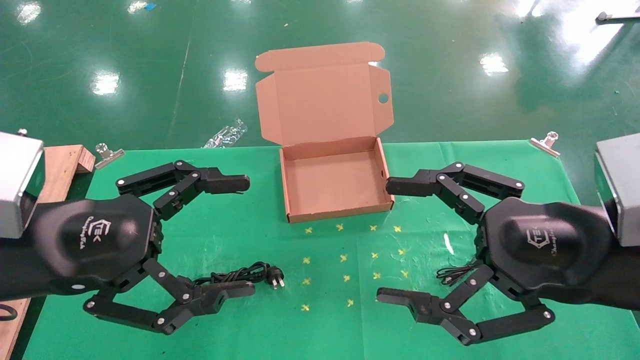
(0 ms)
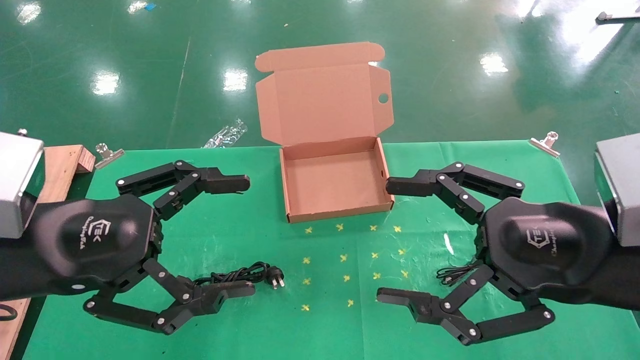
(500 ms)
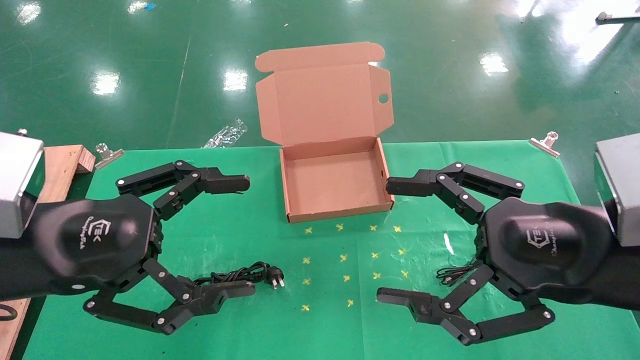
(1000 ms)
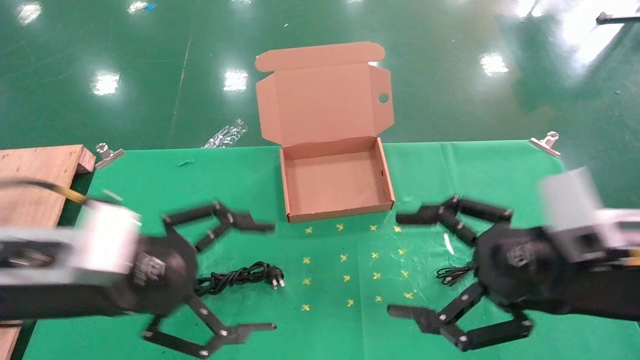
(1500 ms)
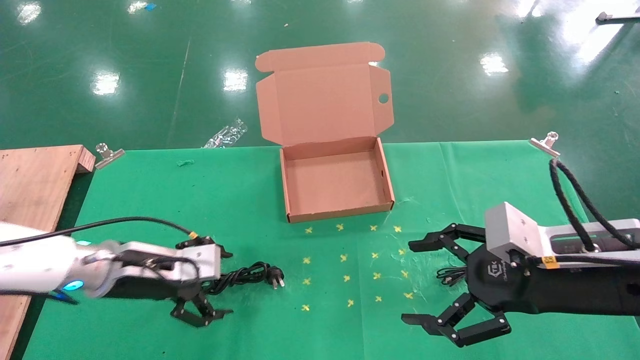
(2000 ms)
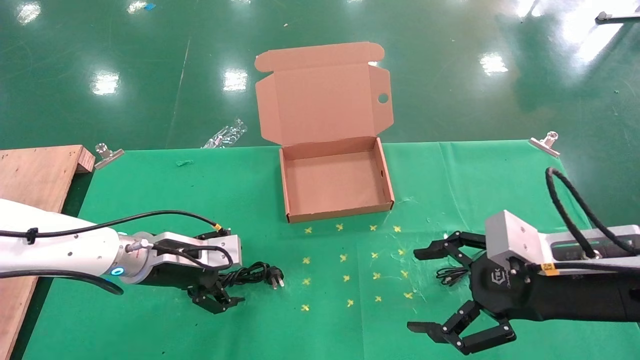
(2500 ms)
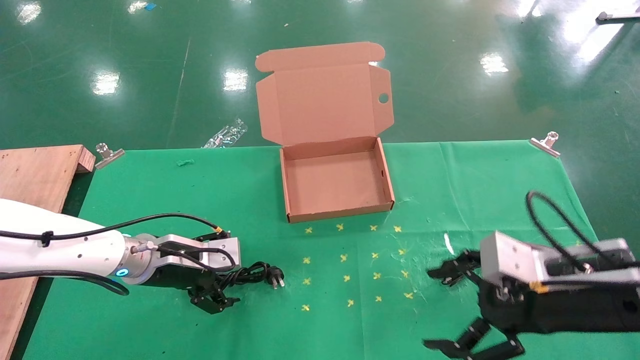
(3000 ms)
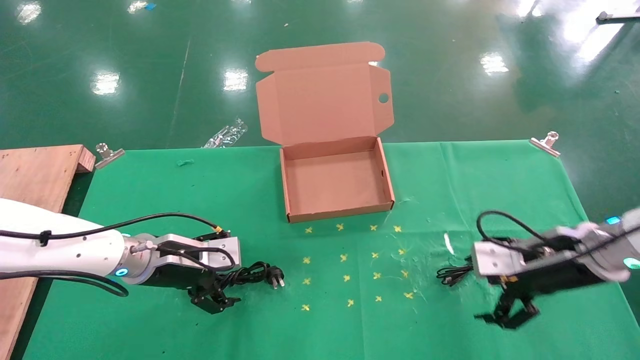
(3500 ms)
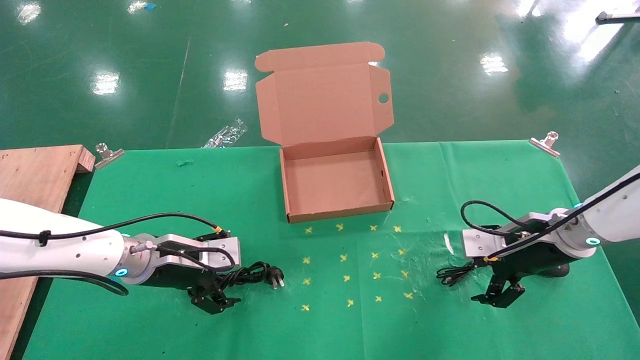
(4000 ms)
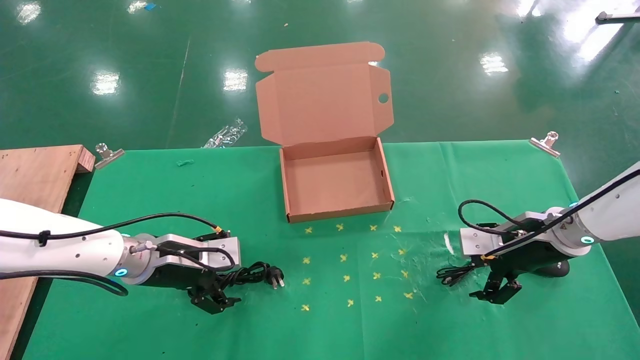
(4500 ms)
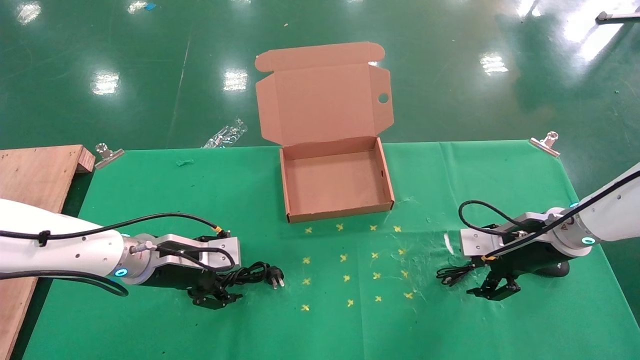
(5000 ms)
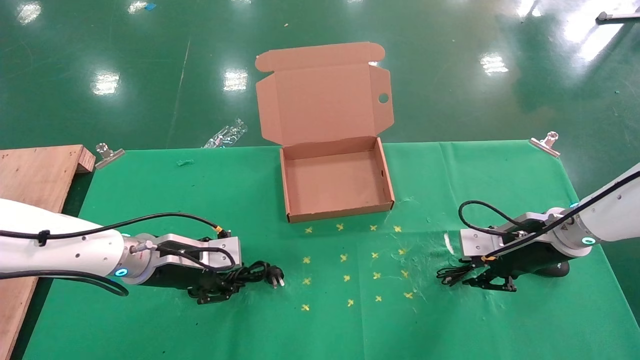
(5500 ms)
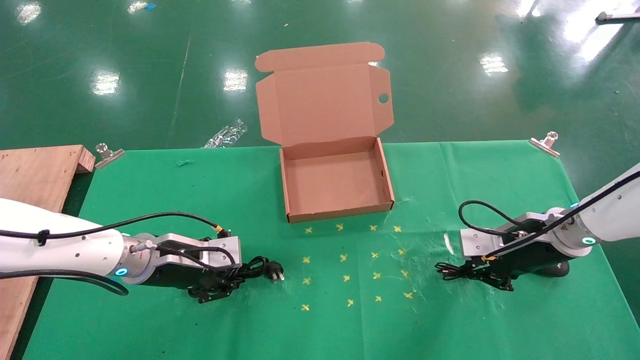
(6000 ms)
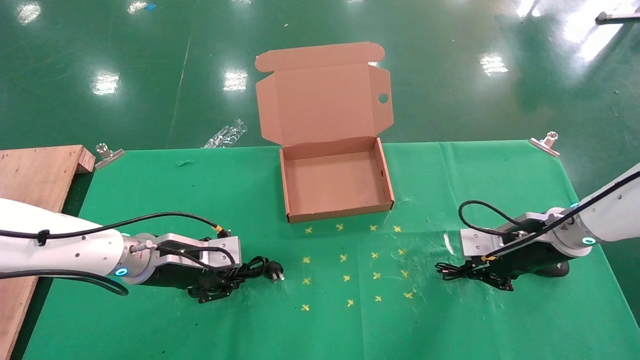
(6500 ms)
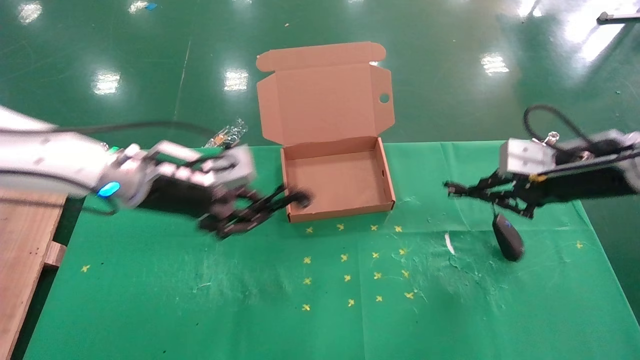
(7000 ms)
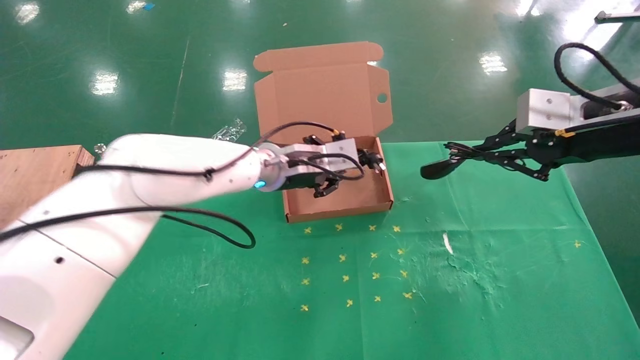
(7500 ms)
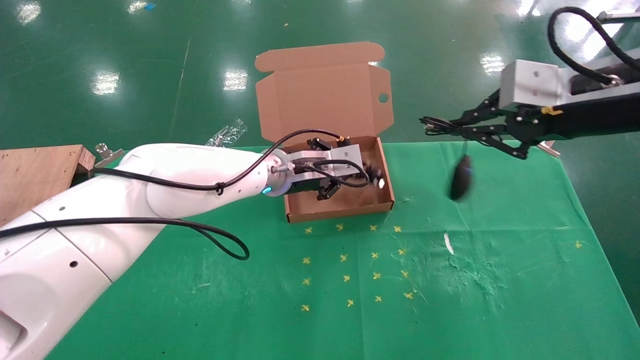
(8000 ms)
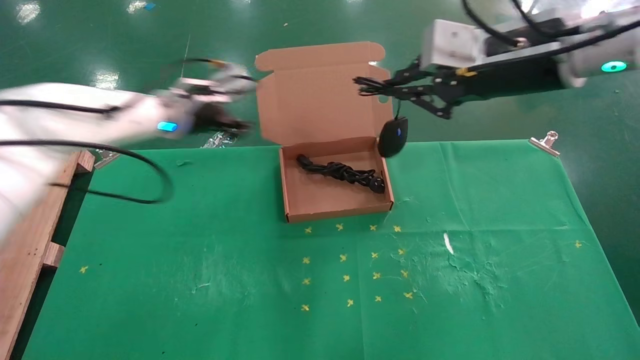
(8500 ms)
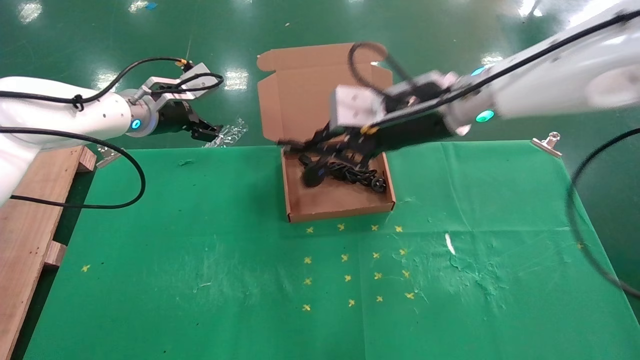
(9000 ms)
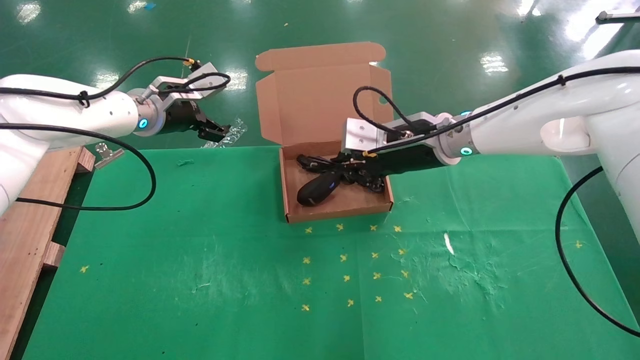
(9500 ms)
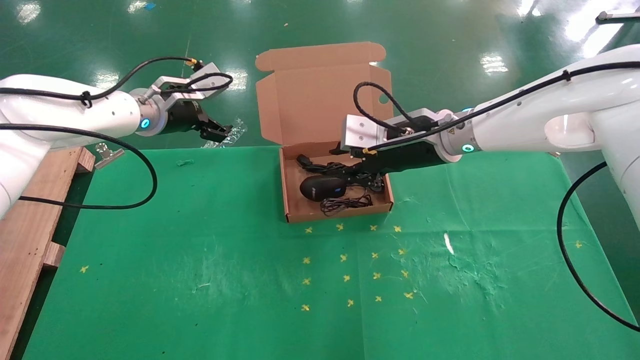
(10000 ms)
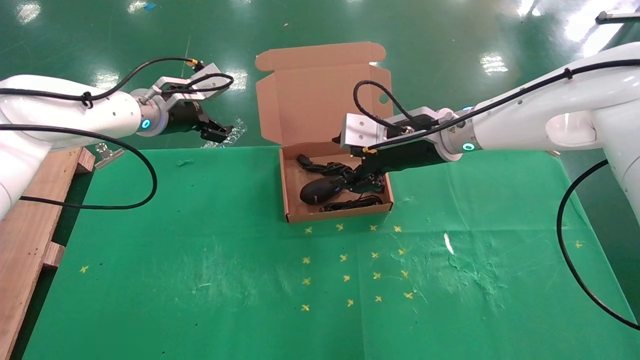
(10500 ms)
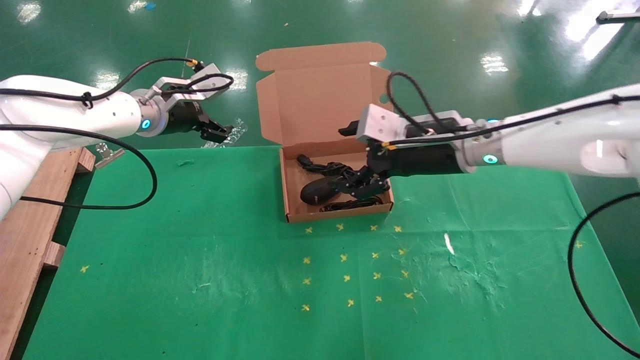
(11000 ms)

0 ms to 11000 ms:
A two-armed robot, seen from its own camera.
Task of the whole recording: grasp data cable left put into box grasp mouse right put into box.
Step, 1500 ms to 5500 ms: Simultaneously pick up the mouse and power cord from the accessory packaging area.
Step, 6000 ms to 10000 ms: Place the mouse and power cord into the box.
0 ms to 2000 ms: The right gripper travels downward and forward by about 10 cm. The left gripper travels forward and downward by approximately 20 cm.
2000 ms to 3500 ms: The right gripper moves forward, about 10 cm. The left gripper shifts by some 5 cm.
3500 ms to 5500 ms: The left gripper closes its fingers, while the right gripper is displaced forward by roughly 5 cm, and closes.
5500 ms to 7500 ms: The left gripper goes about 20 cm to the right, upward and forward. Meanwhile the right gripper goes roughly 20 cm upward, and closes its fingers.
7500 ms to 9000 ms: The left gripper heads to the left and upward, covering about 20 cm, and opens. The right gripper is displaced to the left by roughly 20 cm.
9000 ms to 11000 ms: The right gripper travels downward by about 5 cm, and opens up.

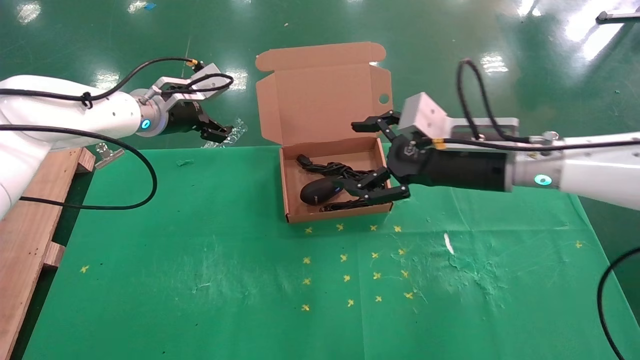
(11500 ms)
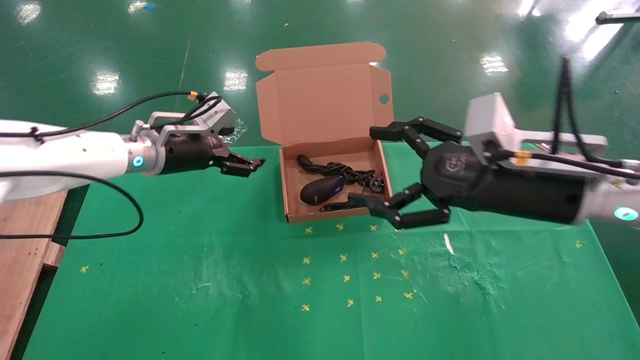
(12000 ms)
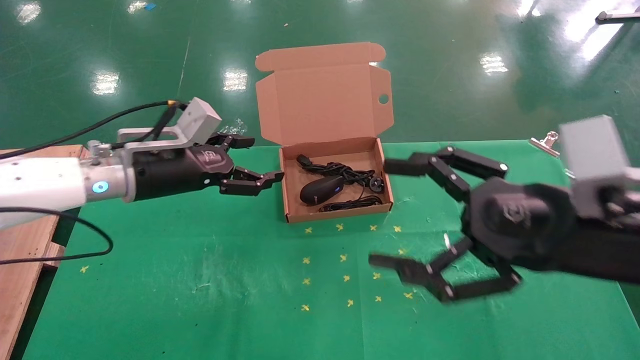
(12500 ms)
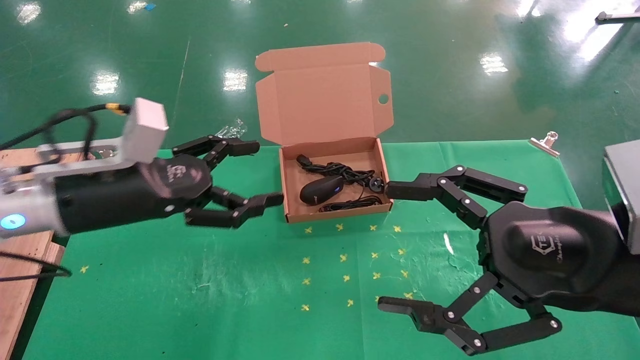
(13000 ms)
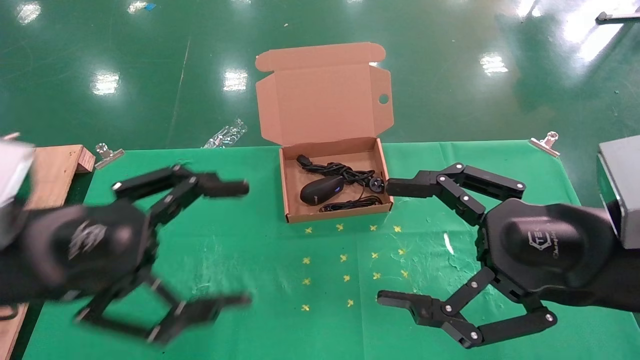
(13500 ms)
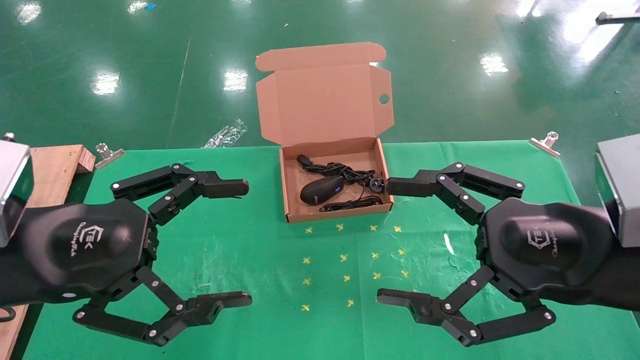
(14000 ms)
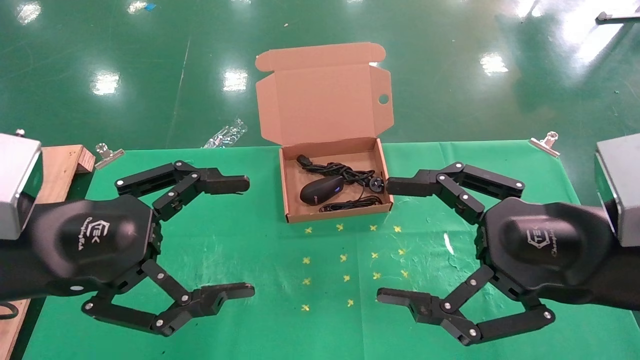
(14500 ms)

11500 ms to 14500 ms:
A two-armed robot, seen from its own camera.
Task of the whole recording: grasp data cable left put into box grasp mouse right put into box.
11500 ms to 13000 ms: The two grippers go roughly 20 cm backward.
13000 ms to 14500 ms: The left gripper heads backward, covering approximately 10 cm.

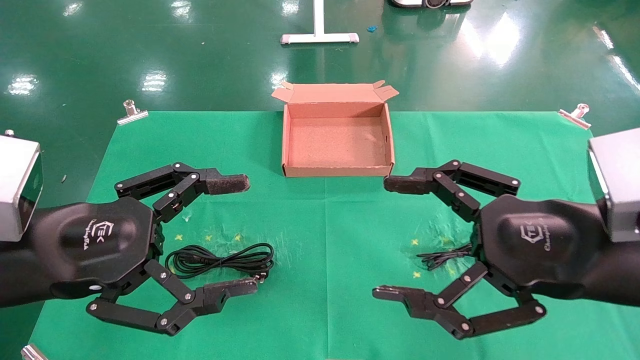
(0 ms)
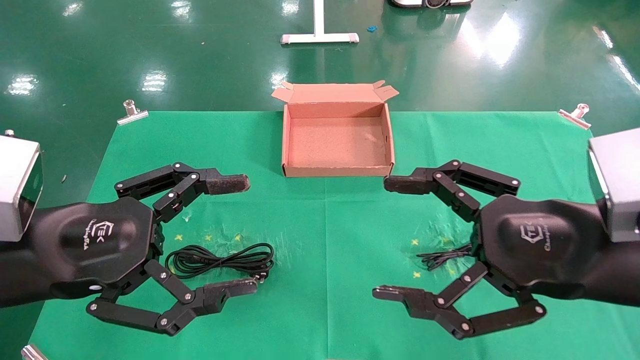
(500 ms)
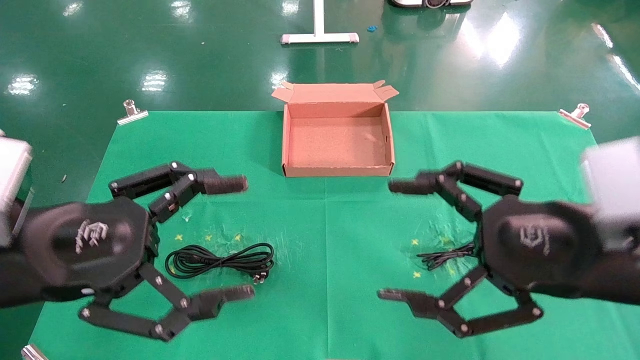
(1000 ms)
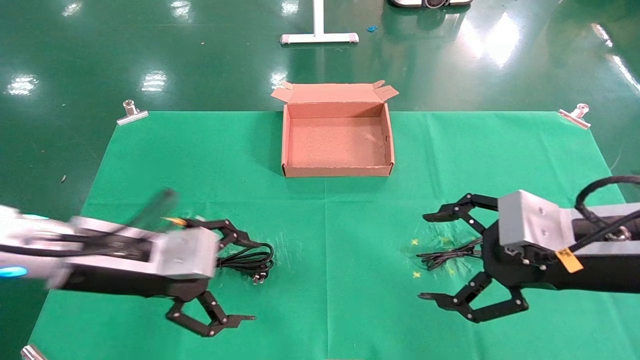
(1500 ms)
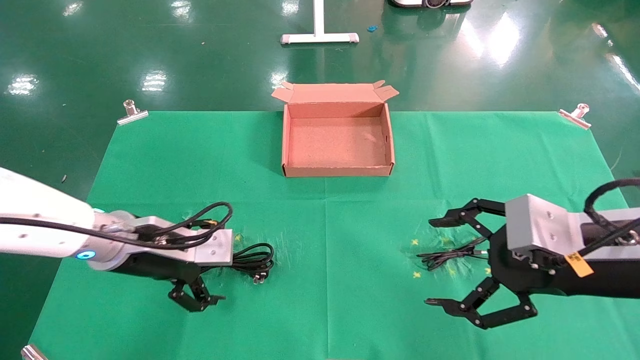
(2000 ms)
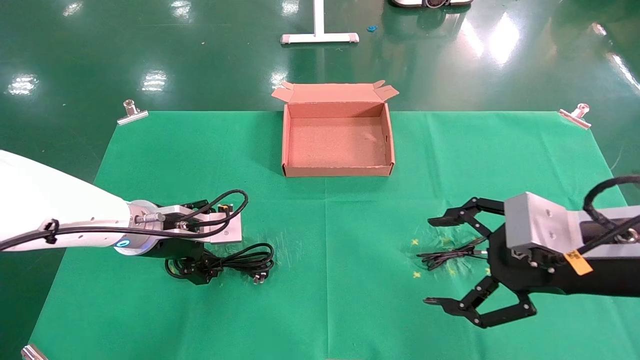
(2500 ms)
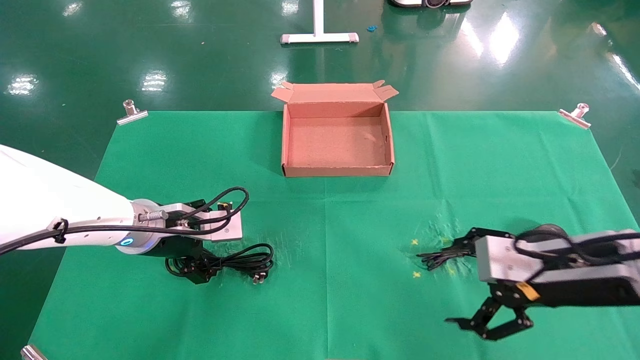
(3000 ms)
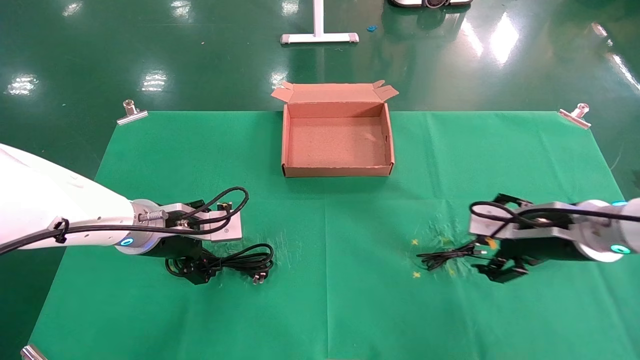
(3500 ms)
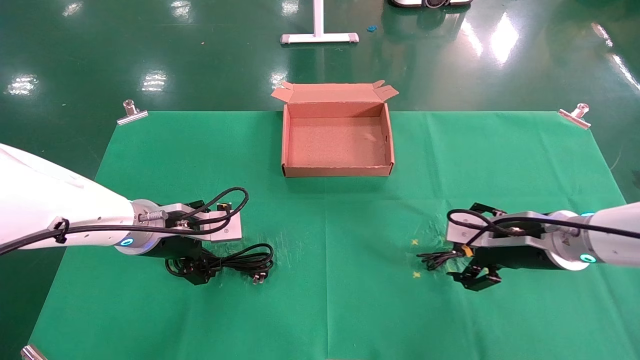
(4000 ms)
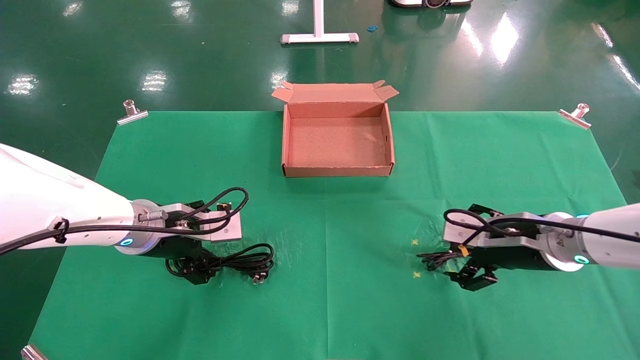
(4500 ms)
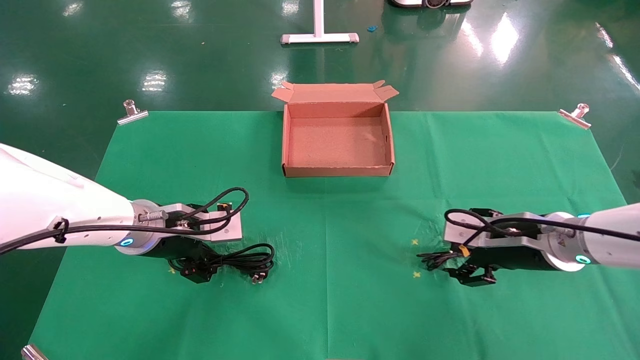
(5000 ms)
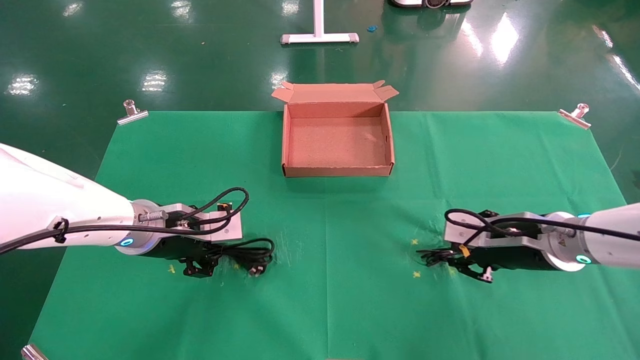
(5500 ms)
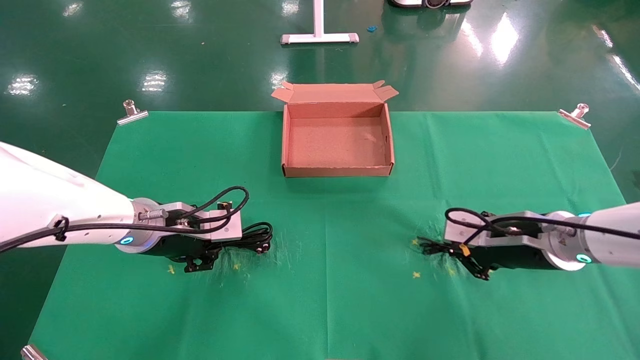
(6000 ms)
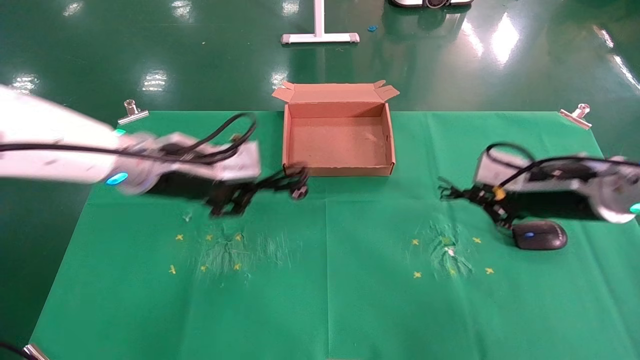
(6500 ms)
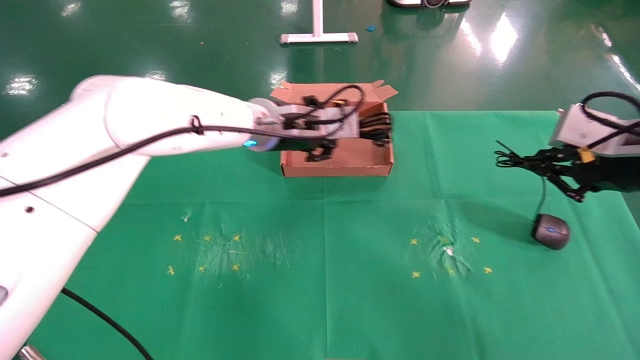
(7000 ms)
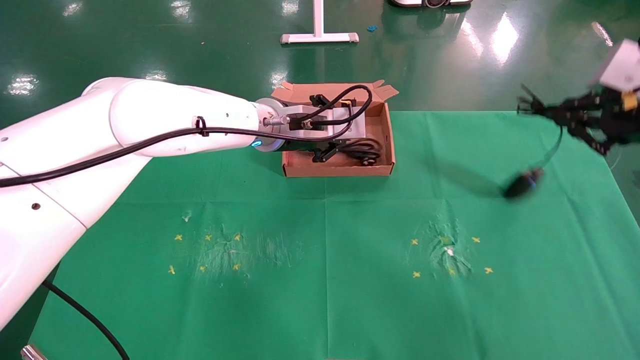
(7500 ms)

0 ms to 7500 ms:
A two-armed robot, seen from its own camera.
Task of the whole recording: grasp data cable left put into box grasp mouse right put into box.
Step, 1500 ms to 6000 ms: Simultaneously pick up the mouse and power cord from the accessory packaging area.
0 ms to 2000 ms: The right gripper ends up some 5 cm from where it was, while the left gripper travels forward and downward by approximately 15 cm.
2000 ms to 4000 ms: The right gripper shifts roughly 15 cm forward and downward.
4000 ms to 5500 ms: The left gripper closes up. Meanwhile the right gripper closes up.
5500 ms to 7500 ms: The right gripper goes about 20 cm upward and to the right, and closes its fingers. The left gripper goes some 20 cm to the right, upward and forward.
